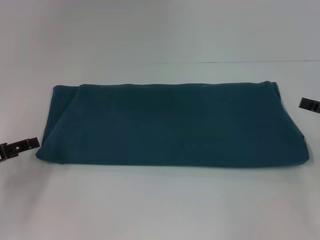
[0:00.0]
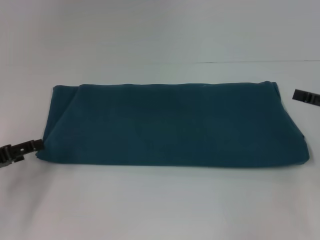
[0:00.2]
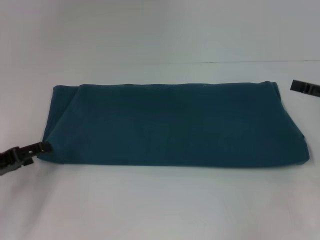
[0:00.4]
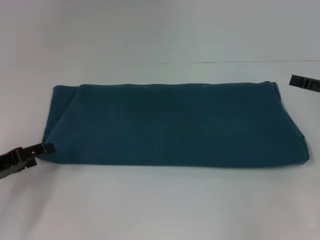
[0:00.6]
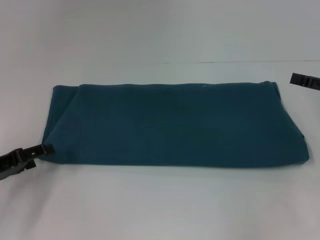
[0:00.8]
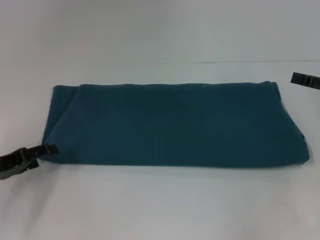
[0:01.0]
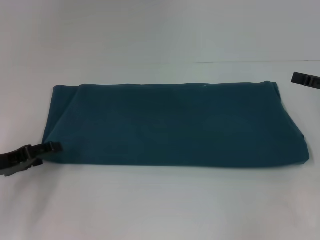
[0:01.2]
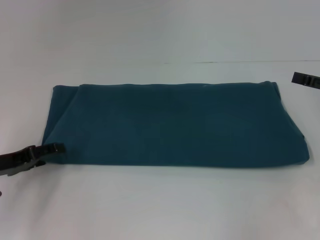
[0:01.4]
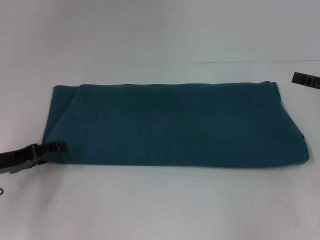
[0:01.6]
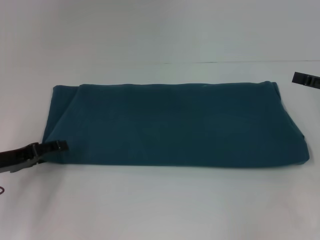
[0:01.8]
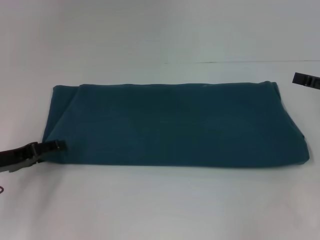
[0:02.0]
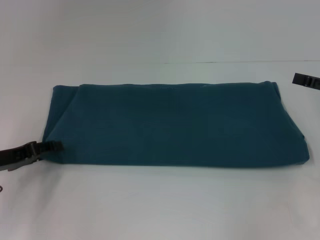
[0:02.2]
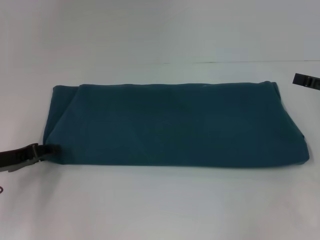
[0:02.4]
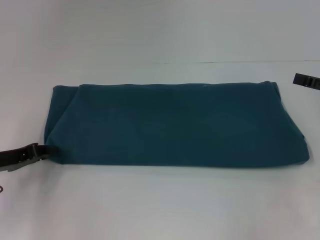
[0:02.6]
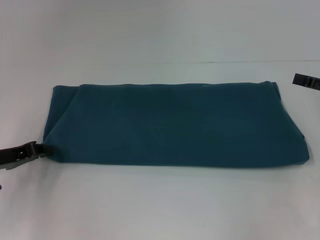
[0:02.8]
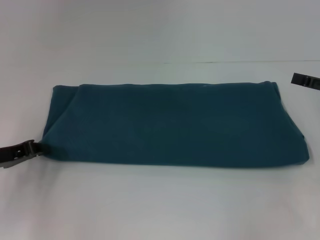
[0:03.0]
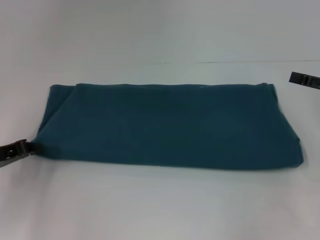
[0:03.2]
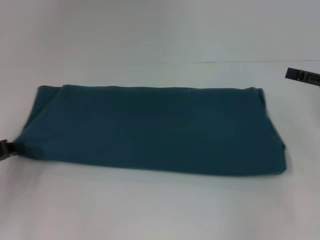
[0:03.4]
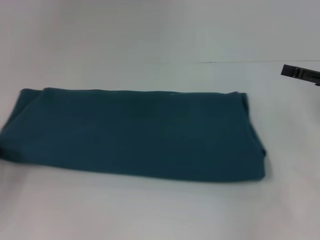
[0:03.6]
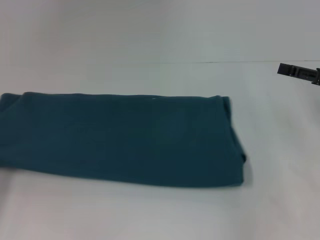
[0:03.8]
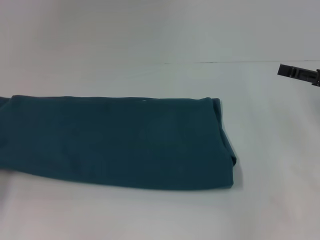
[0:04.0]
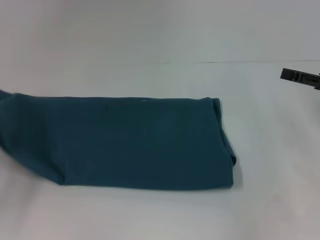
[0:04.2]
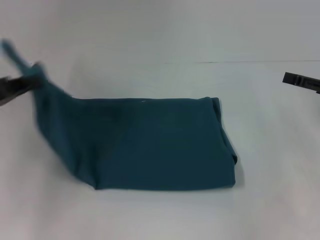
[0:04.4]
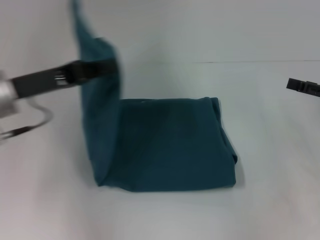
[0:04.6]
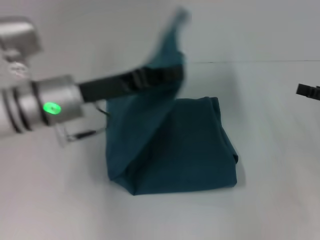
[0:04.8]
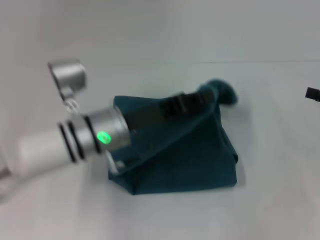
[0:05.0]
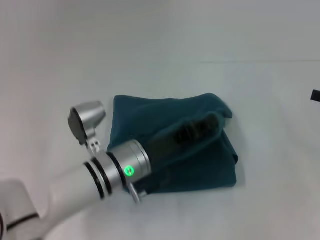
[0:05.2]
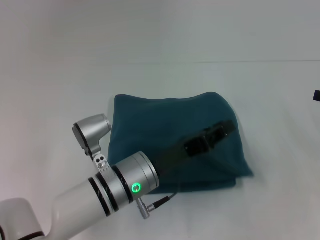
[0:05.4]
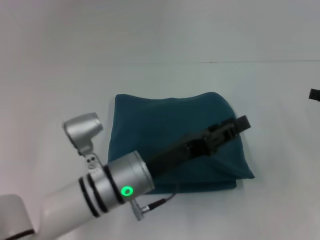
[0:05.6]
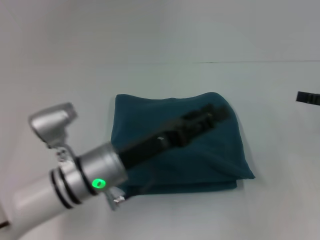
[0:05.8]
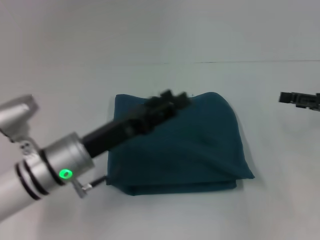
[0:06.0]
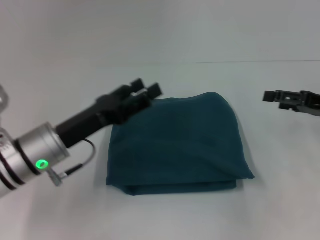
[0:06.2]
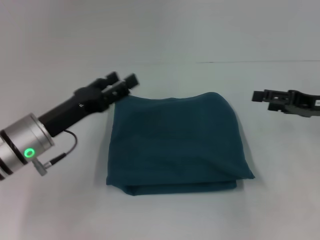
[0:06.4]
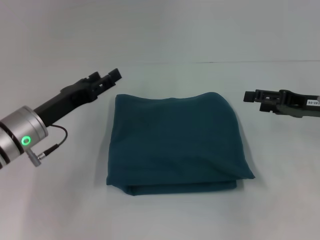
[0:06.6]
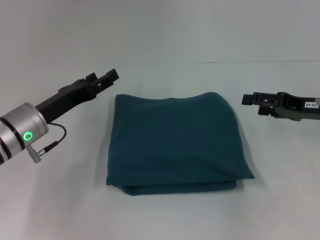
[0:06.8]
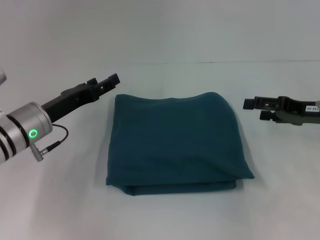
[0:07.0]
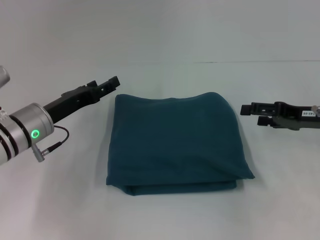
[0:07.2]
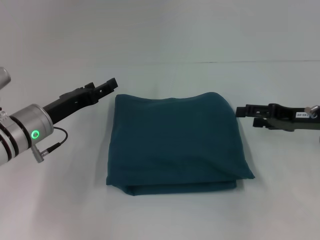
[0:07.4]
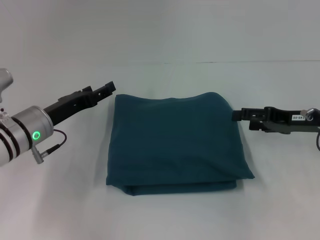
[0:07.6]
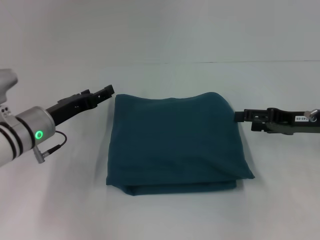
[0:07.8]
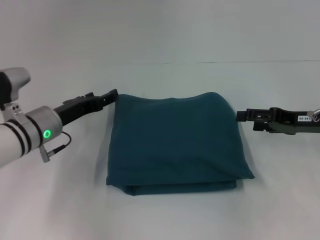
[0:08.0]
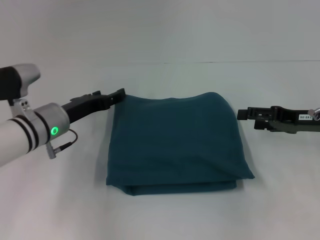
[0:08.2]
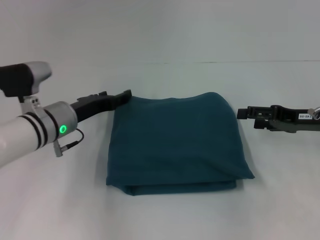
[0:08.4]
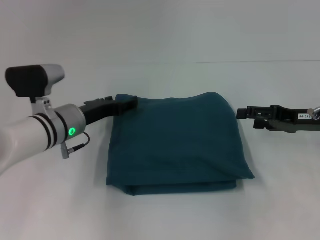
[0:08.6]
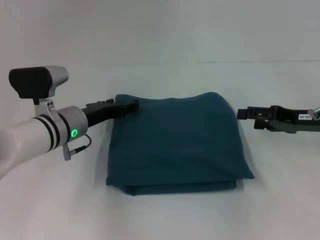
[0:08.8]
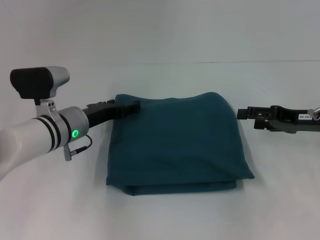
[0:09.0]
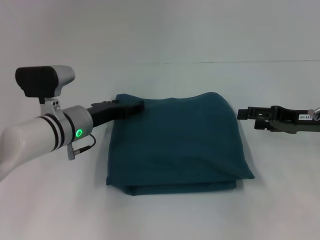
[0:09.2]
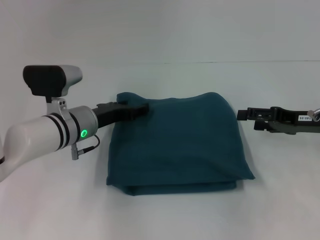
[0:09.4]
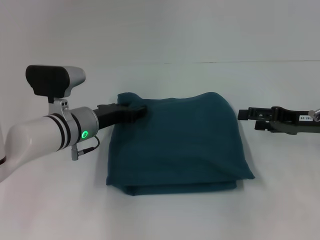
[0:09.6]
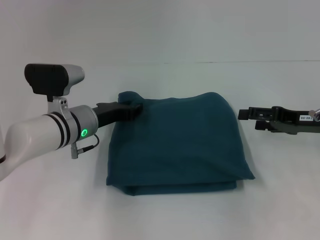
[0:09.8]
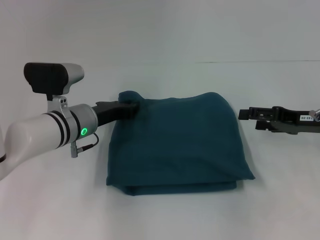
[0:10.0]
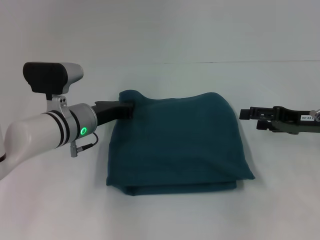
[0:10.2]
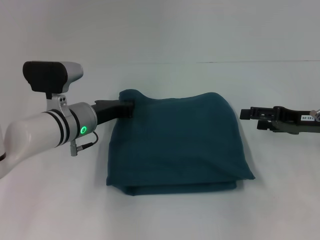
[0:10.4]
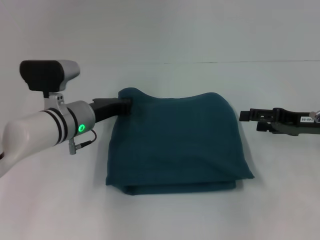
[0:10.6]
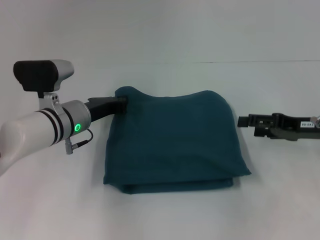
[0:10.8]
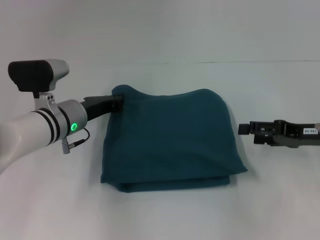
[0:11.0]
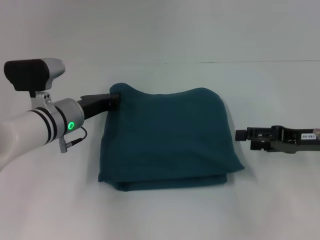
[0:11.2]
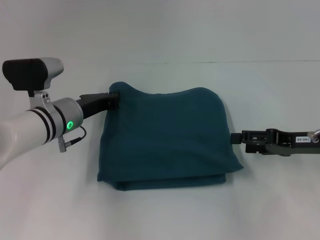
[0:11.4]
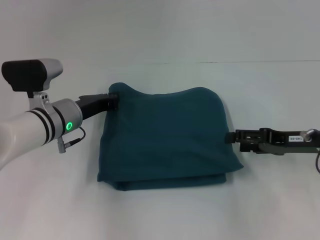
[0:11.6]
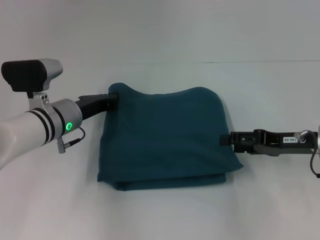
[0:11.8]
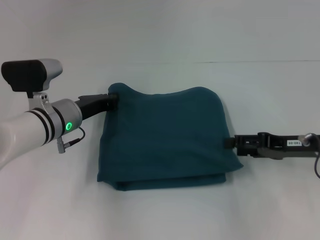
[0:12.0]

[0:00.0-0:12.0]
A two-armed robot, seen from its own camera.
Step, 0:00.0 to 0:05.6: Fold the clothes to the left.
0:00.0 to 0:01.6: The grippers stay close to where they were, moving slightly.
0:01.6 to 0:03.0: The left gripper closes its fingers.
0:03.0 to 0:04.4: The left gripper moves upward, roughly 10 cm, and travels to the left and back again, approximately 10 cm each way.
0:04.4 to 0:06.0: The left gripper heads to the right and downward, covering approximately 20 cm, and opens.
0:06.0 to 0:07.6: The left gripper moves to the left and forward, about 10 cm. Meanwhile the right gripper shifts roughly 5 cm to the left.
0:07.6 to 0:09.0: The left gripper moves to the right, about 5 cm.
0:09.0 to 0:10.4: The left gripper closes up.
0:10.4 to 0:12.0: There are only small adjustments of the grippers.

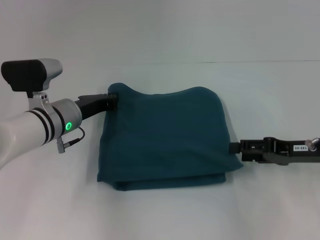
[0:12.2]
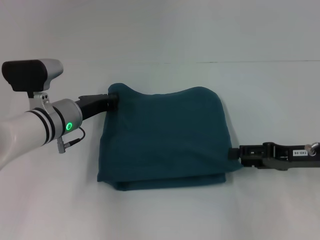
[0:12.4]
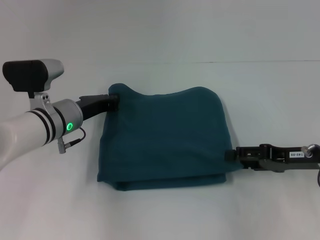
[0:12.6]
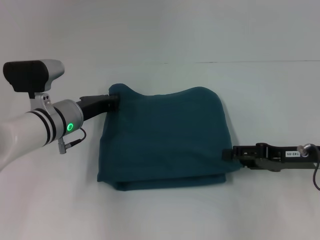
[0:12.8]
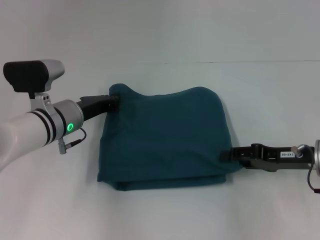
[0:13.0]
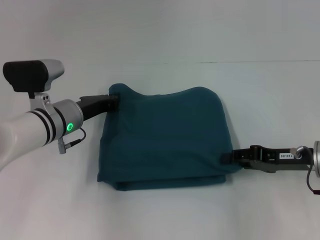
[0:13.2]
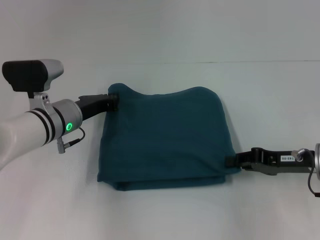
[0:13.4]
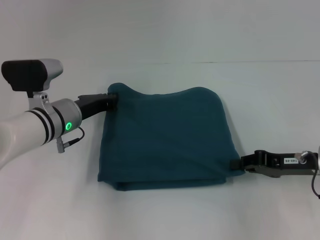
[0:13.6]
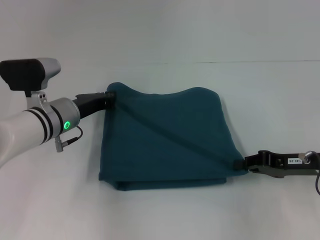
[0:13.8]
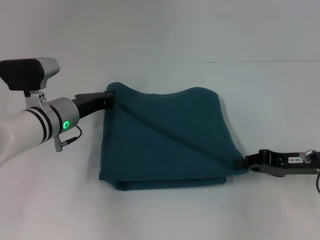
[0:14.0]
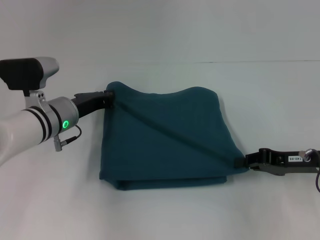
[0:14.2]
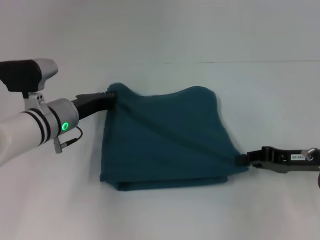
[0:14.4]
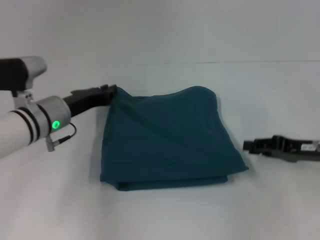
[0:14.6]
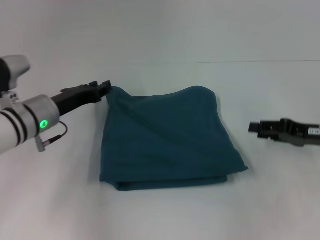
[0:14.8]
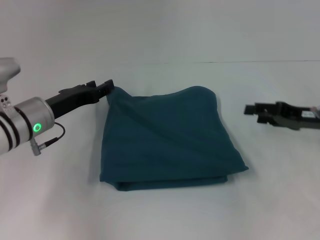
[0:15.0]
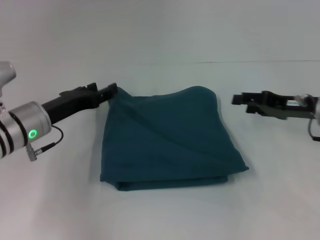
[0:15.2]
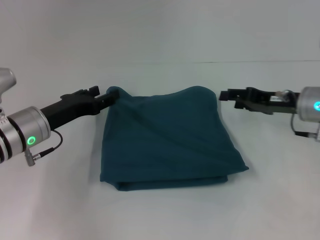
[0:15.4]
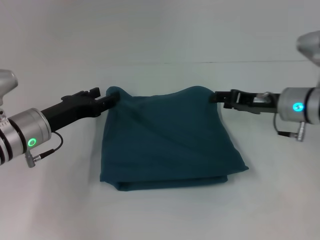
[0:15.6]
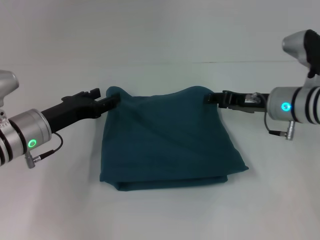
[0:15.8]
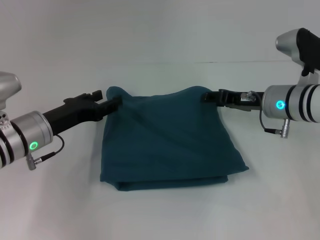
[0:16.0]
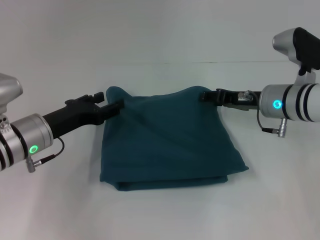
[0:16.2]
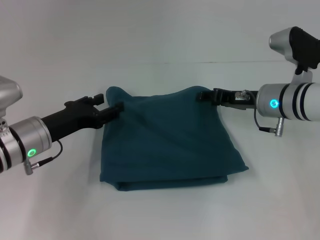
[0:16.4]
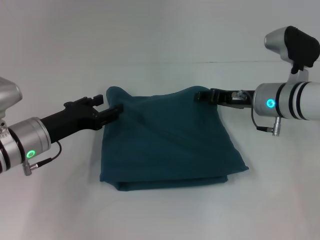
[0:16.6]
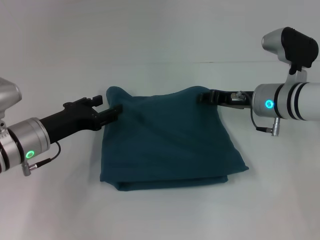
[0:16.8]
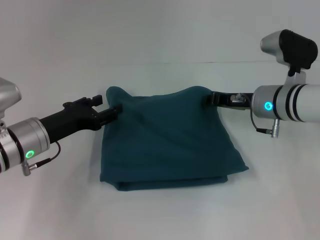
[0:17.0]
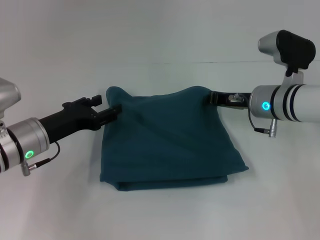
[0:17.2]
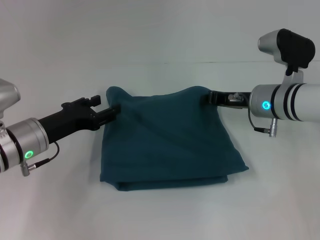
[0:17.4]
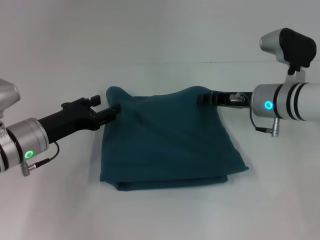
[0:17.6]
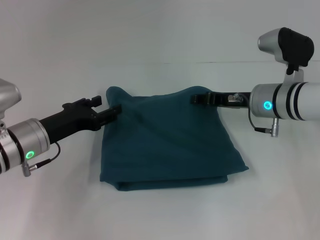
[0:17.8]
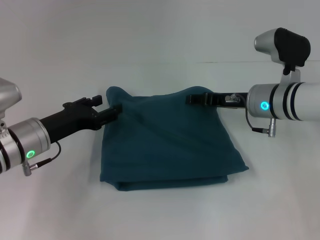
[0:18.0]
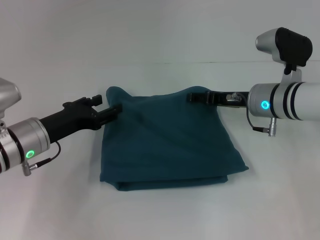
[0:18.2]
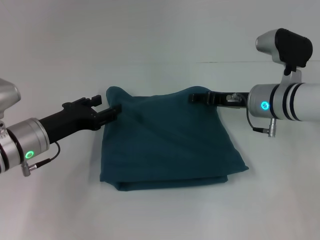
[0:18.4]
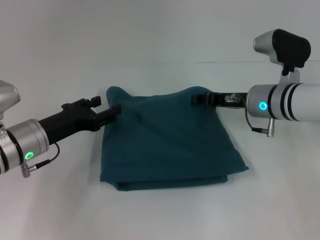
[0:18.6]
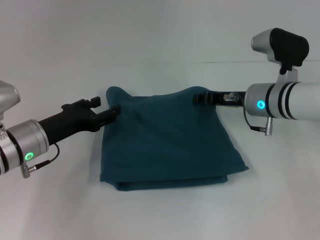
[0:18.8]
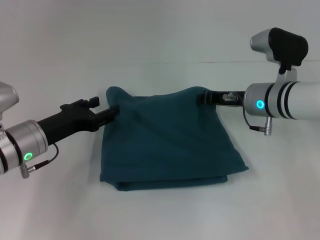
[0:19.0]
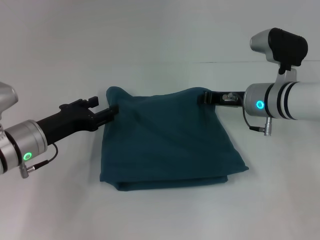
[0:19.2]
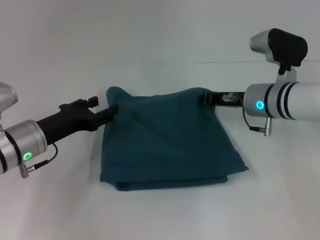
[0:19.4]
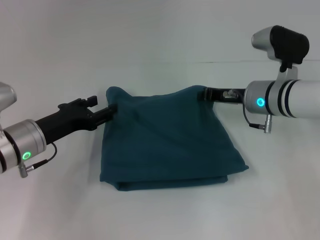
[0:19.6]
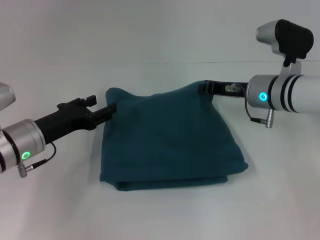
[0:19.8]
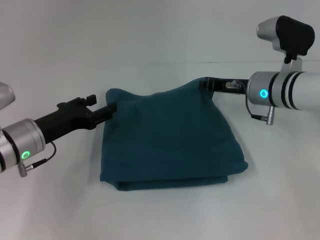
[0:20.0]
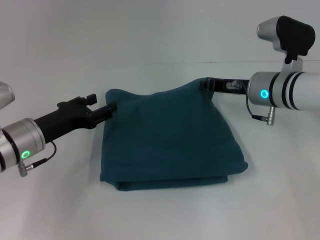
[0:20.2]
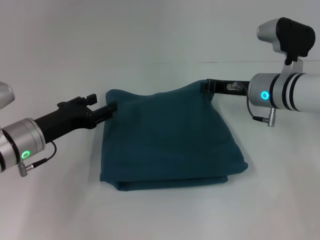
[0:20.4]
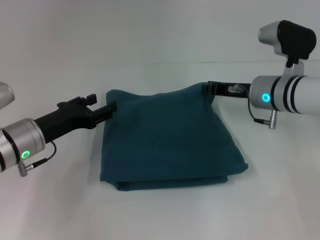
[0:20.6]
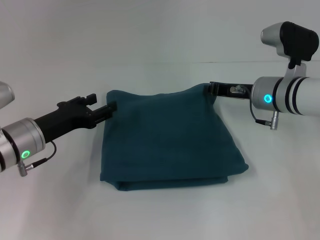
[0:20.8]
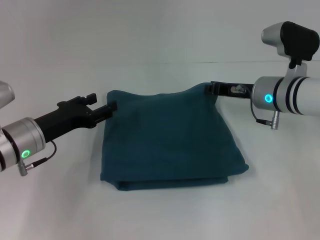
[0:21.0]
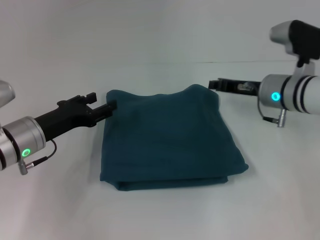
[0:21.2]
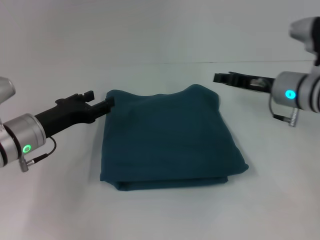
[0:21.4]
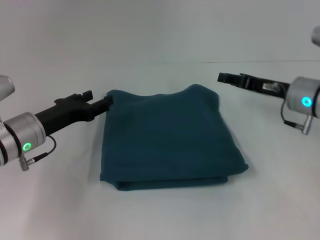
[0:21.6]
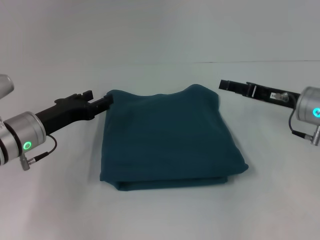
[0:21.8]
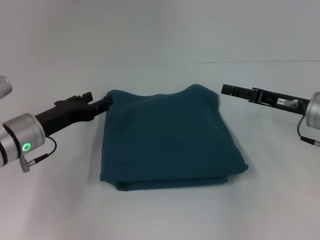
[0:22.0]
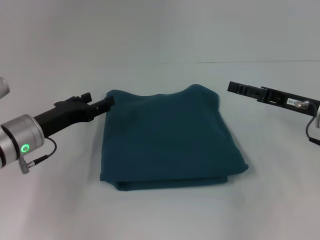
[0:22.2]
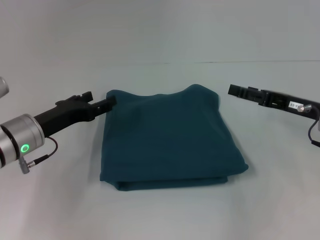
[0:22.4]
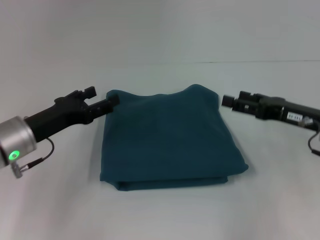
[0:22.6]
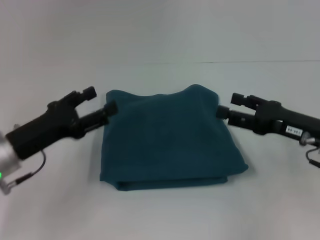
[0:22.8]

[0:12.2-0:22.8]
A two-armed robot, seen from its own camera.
0:12.2 to 0:13.8: The right gripper closes.
0:13.8 to 0:15.2: The right gripper shifts some 5 cm forward, and opens up. Meanwhile the left gripper shifts by about 5 cm, and opens its fingers.
0:15.2 to 0:16.8: The right gripper is displaced to the left by some 10 cm.
0:16.8 to 0:18.2: The right gripper closes, then opens again.
0:18.2 to 0:19.8: The right gripper closes up.
0:19.8 to 0:21.2: The grippers stay close to where they were, moving slightly.
0:21.2 to 0:22.8: The right gripper goes about 10 cm backward and to the right, and opens, while the left gripper changes place by about 5 cm.
